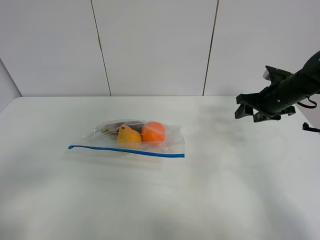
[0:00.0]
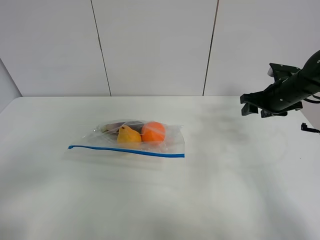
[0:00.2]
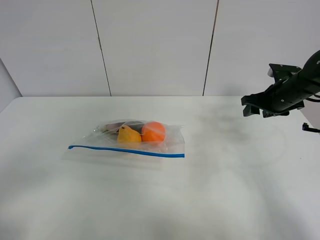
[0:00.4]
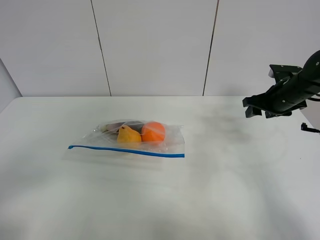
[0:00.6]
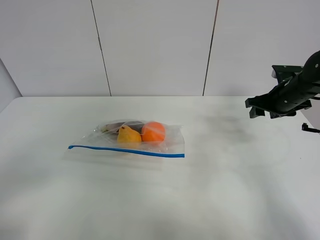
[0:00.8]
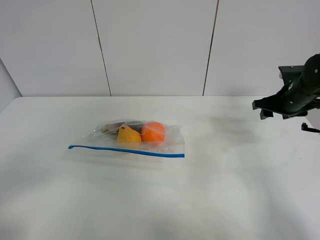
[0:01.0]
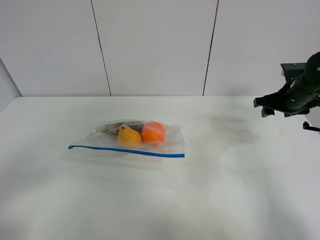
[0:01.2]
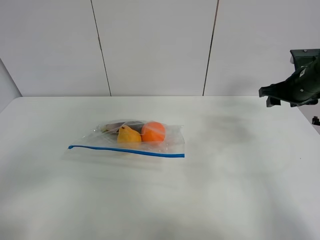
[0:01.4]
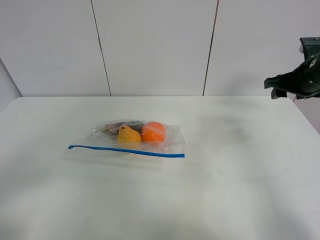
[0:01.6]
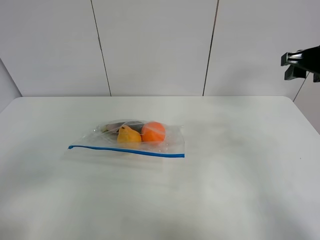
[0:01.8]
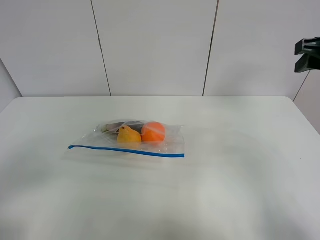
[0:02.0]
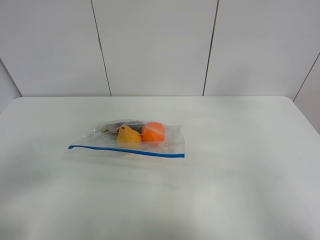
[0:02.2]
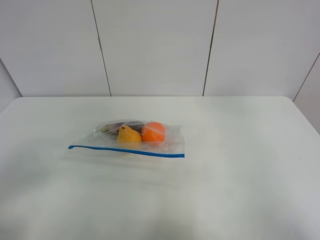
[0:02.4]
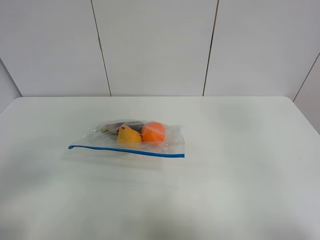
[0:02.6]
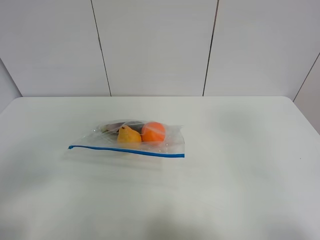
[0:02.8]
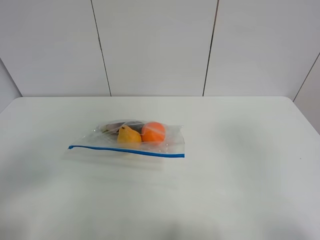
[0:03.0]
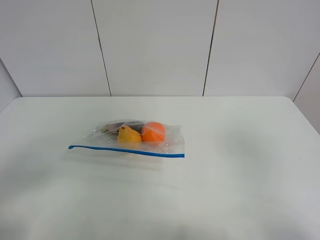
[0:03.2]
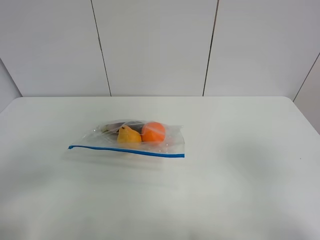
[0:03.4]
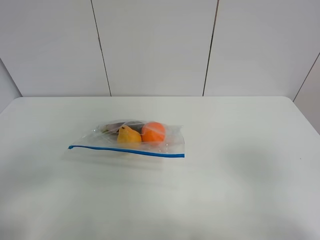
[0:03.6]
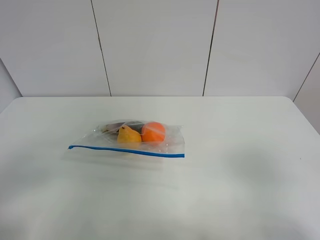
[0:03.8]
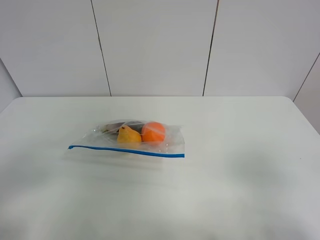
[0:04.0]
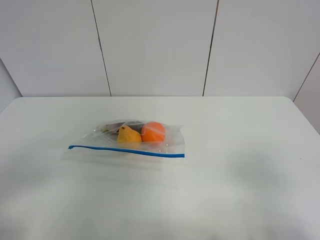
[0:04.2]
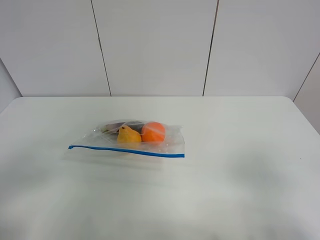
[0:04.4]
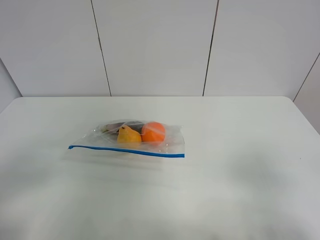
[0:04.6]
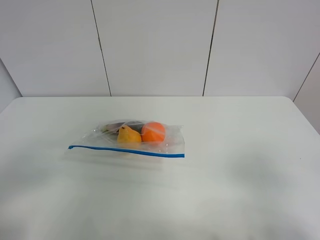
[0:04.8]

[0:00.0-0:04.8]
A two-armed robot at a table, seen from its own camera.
0:00.0 to 0:01.6: The right gripper goes roughly 10 cm upward.
0:01.6 to 0:03.2: The right gripper goes approximately 35 cm backward.
